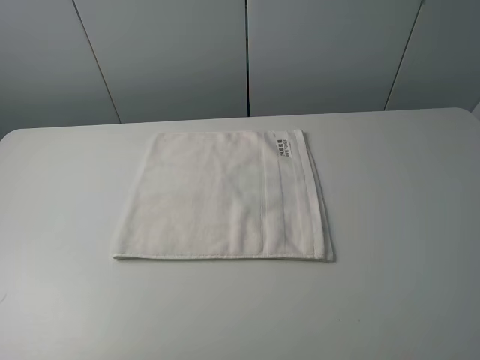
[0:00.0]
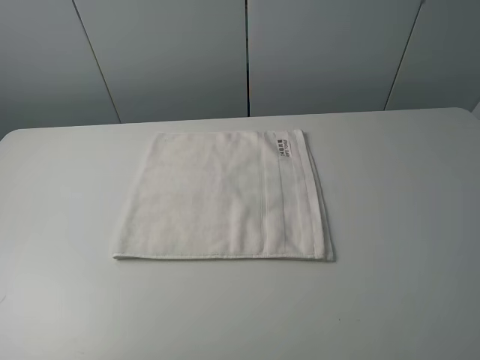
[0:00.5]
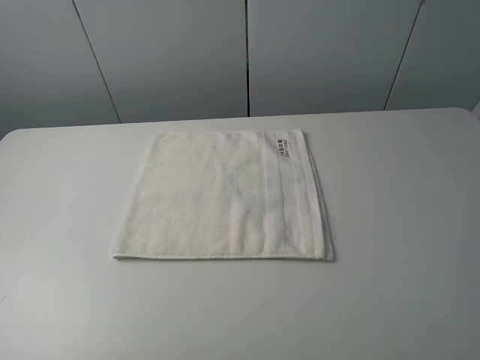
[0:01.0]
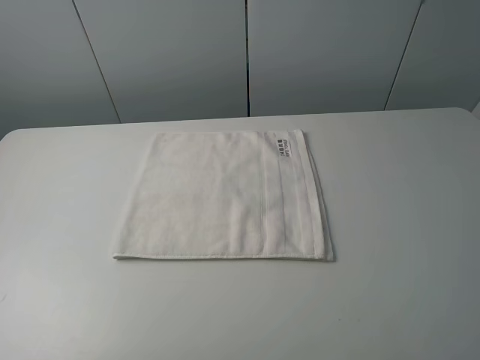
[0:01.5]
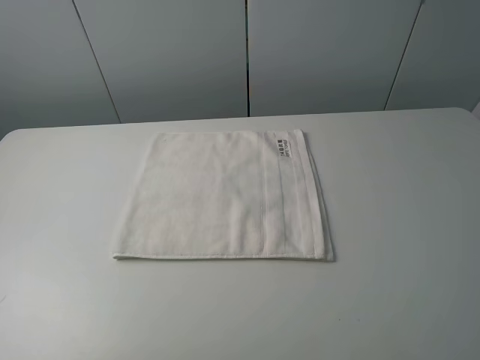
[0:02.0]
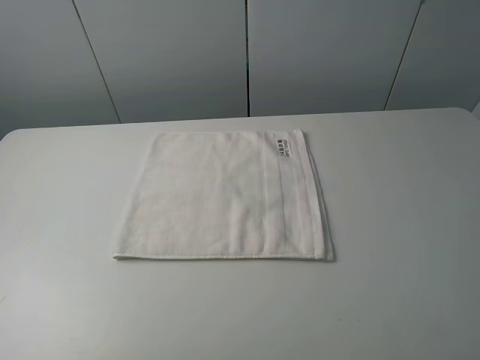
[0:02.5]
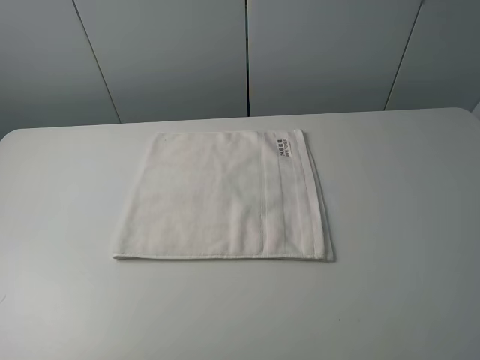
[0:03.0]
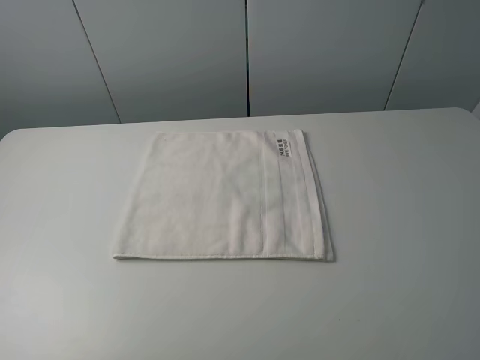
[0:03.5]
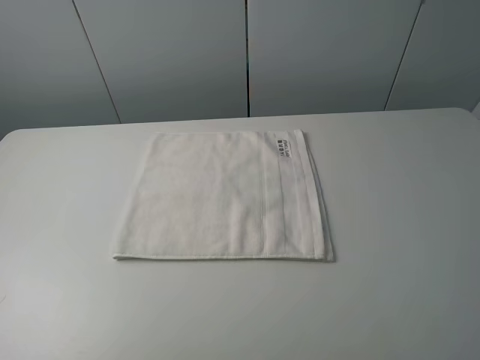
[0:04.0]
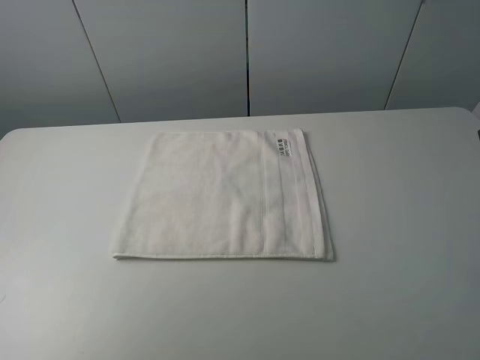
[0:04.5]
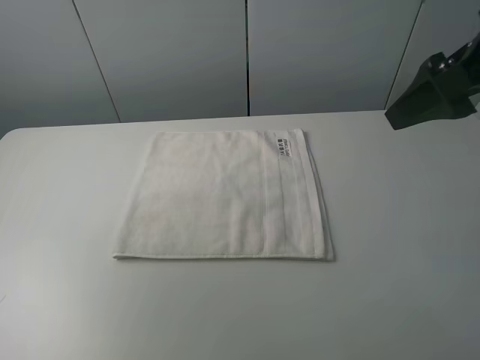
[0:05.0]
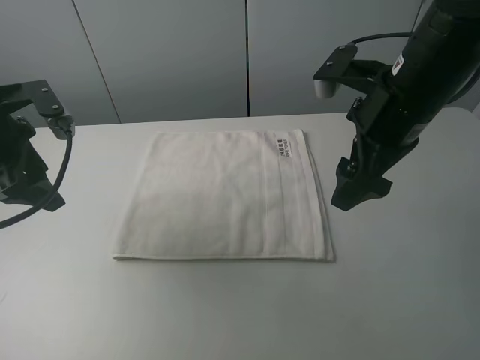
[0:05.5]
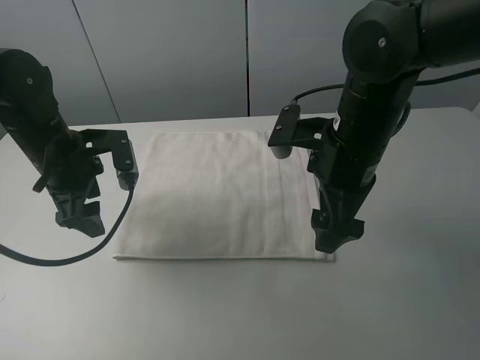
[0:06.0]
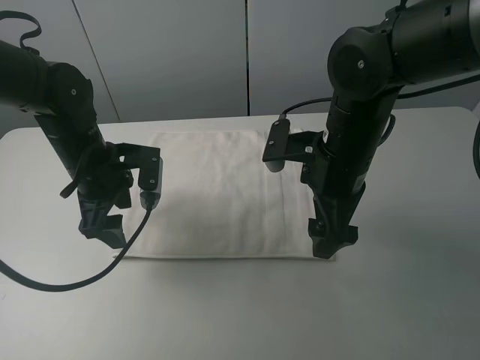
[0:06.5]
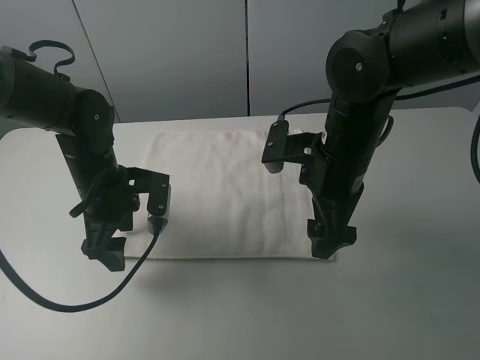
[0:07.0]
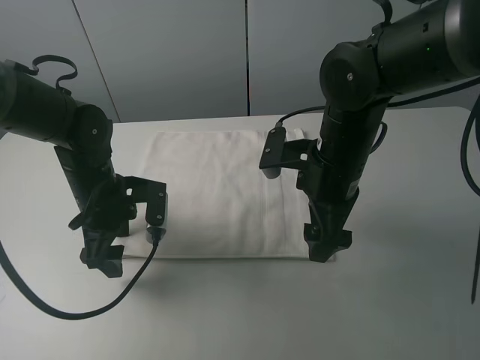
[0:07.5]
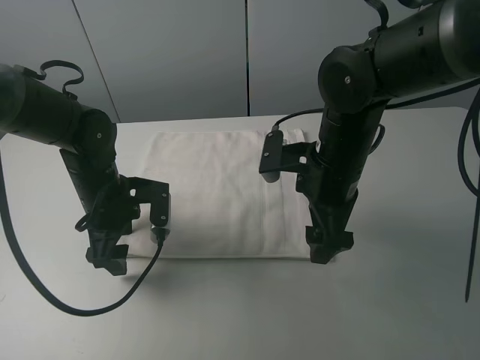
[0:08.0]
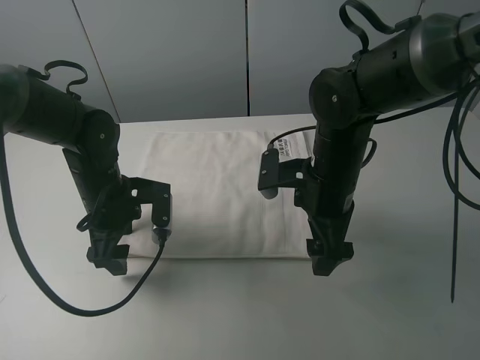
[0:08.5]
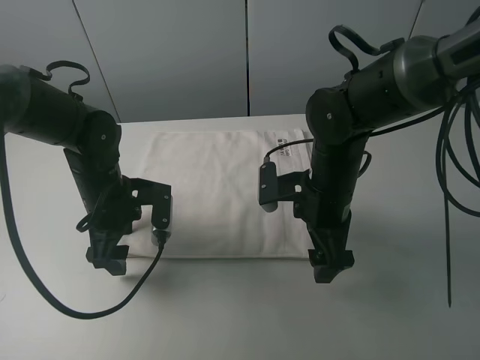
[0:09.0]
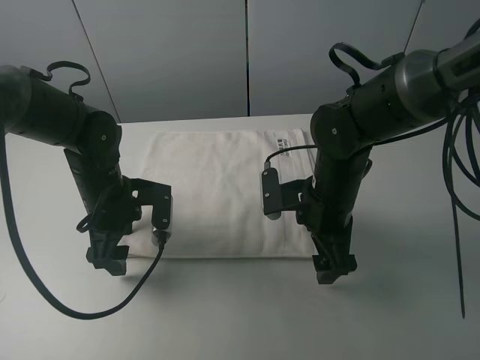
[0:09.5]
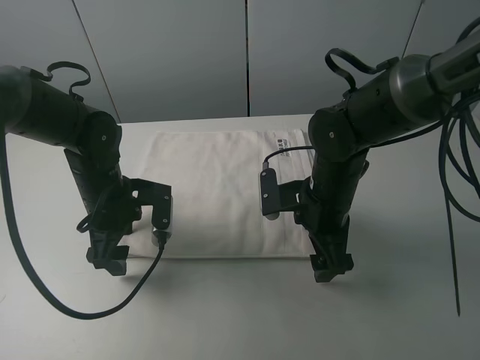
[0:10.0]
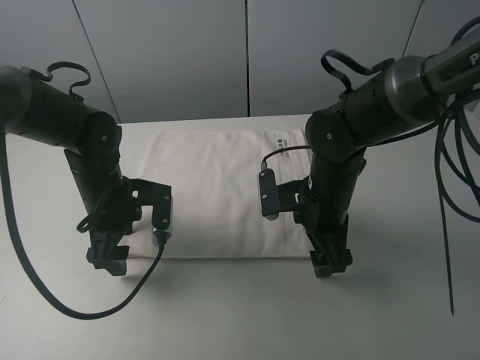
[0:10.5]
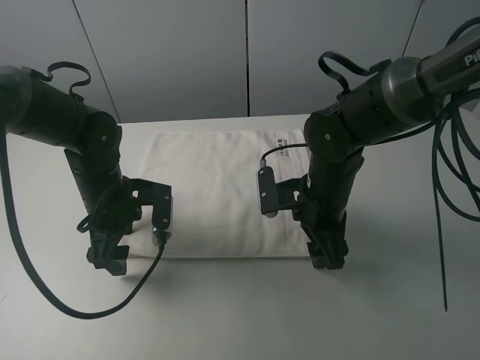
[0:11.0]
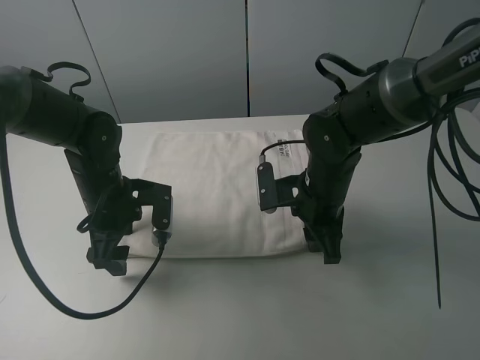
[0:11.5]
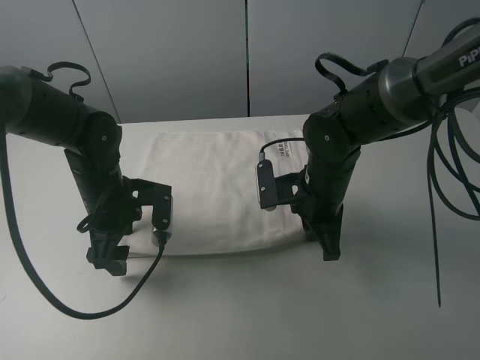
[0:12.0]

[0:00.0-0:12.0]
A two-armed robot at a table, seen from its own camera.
Task of the whole recording: fold the towels on the table.
Step, 0:00.0 to 0:11.5: Grasp the white towel with the right gripper.
0:00.0 to 0:02.0: The two grippers keep their place.
0:04.0 to 0:06.0: The left gripper travels forward, to the right and downward by some 35 cm, while the right gripper shifts approximately 30 cm forward, to the left and downward.
0:06.0 to 0:08.0: The left gripper goes approximately 5 cm downward.
0:08.0 to 0:10.0: The right gripper moves downward, about 5 cm.
0:10.0 to 0:12.0: The right gripper closes its fingers.

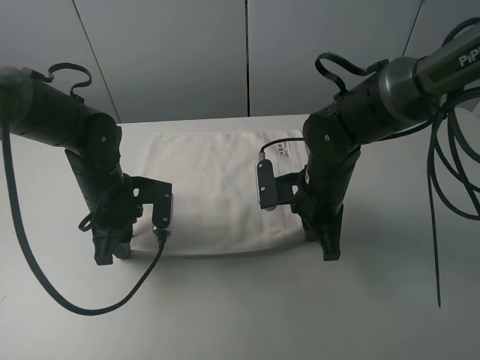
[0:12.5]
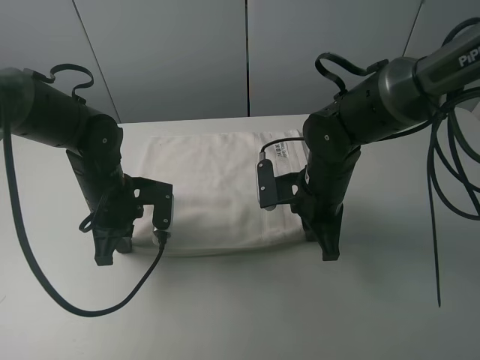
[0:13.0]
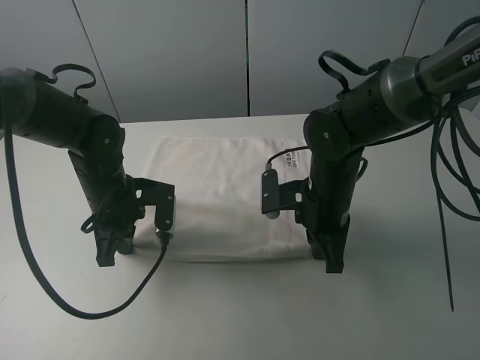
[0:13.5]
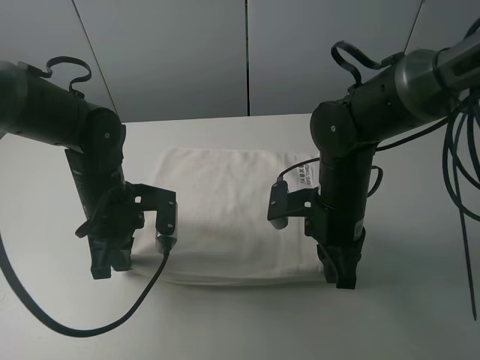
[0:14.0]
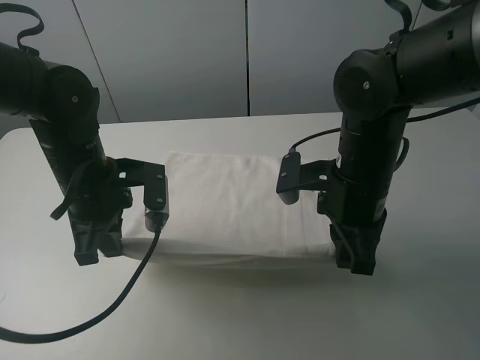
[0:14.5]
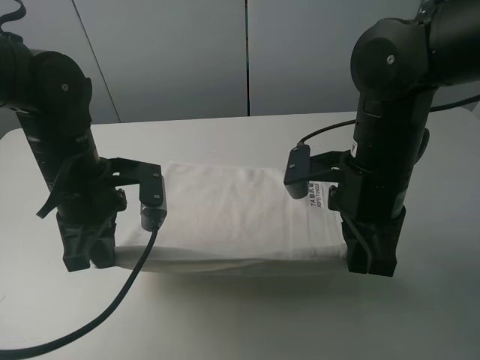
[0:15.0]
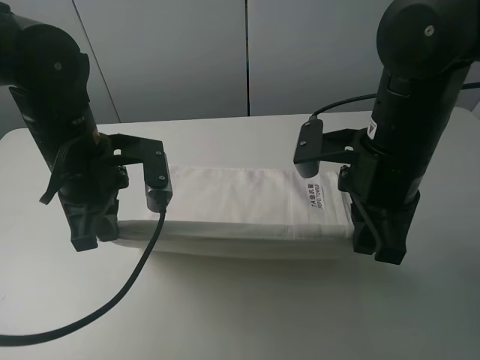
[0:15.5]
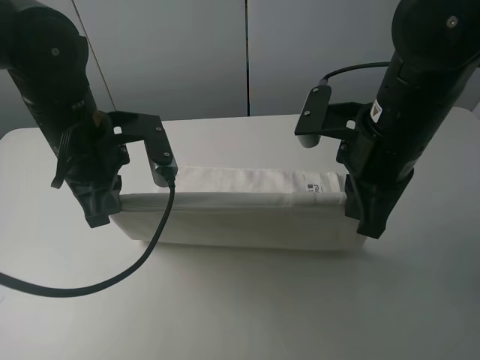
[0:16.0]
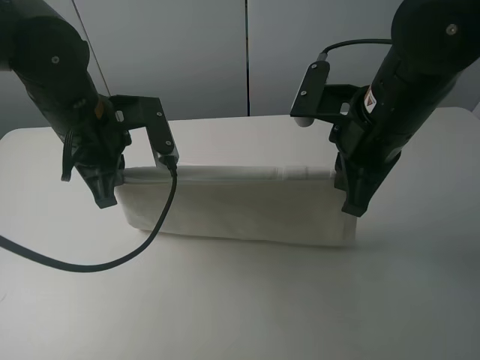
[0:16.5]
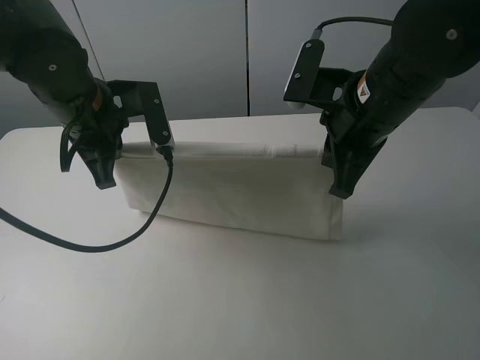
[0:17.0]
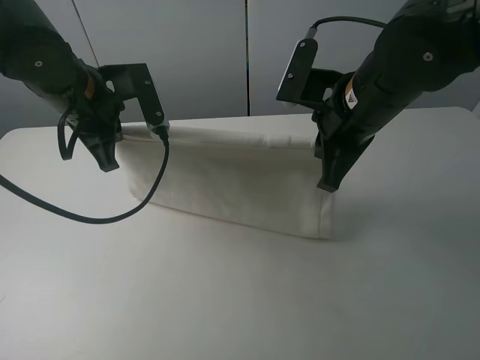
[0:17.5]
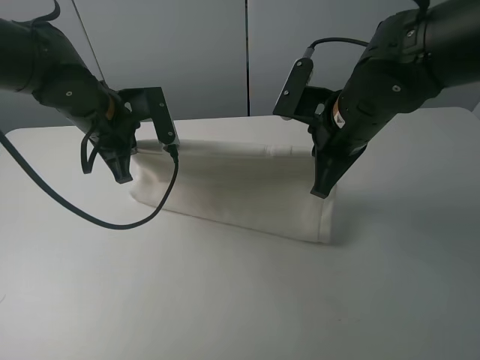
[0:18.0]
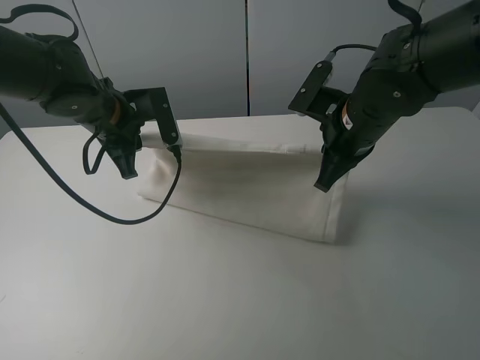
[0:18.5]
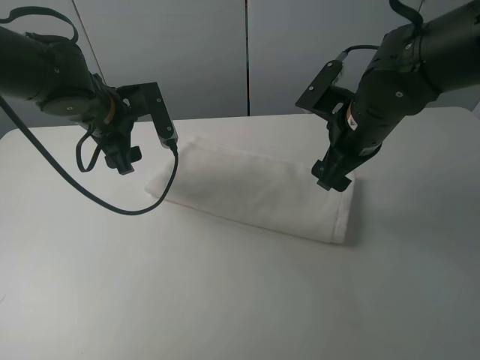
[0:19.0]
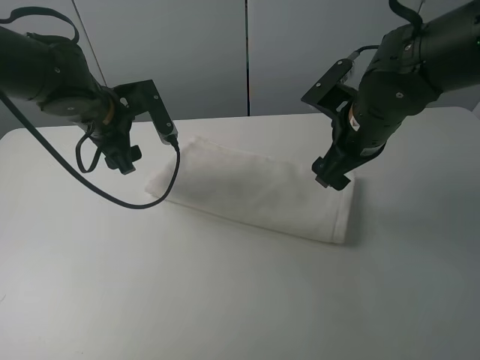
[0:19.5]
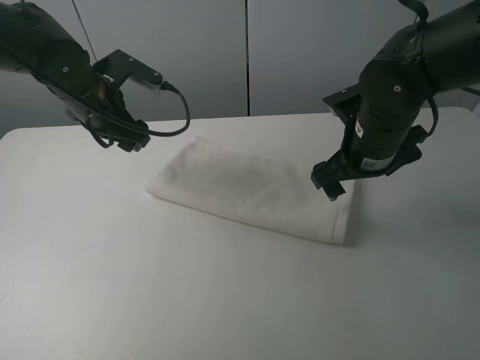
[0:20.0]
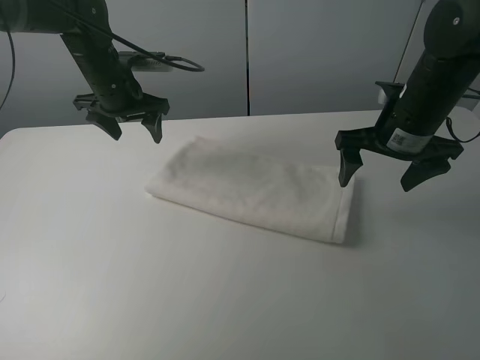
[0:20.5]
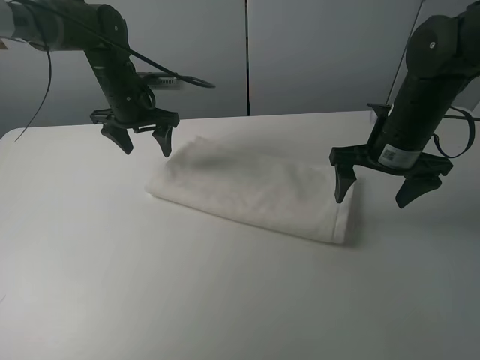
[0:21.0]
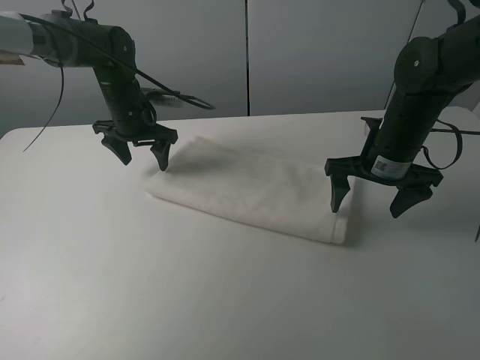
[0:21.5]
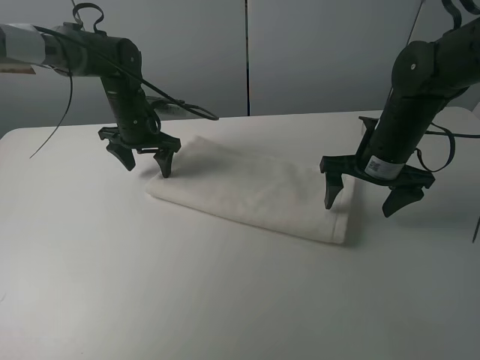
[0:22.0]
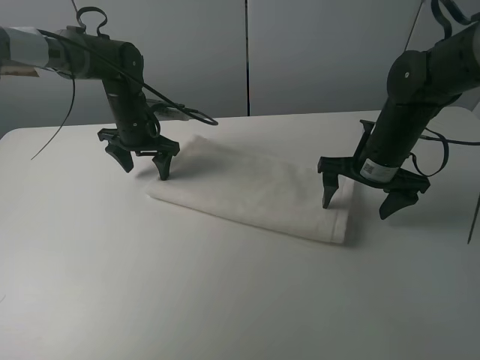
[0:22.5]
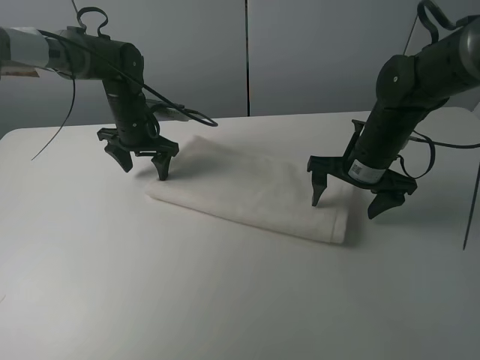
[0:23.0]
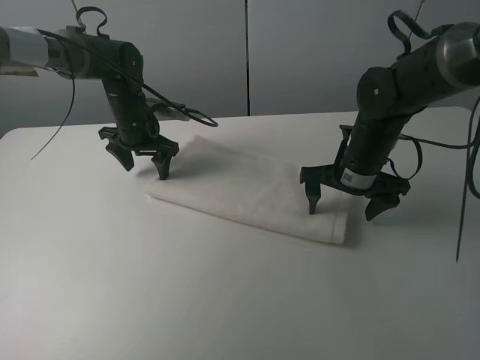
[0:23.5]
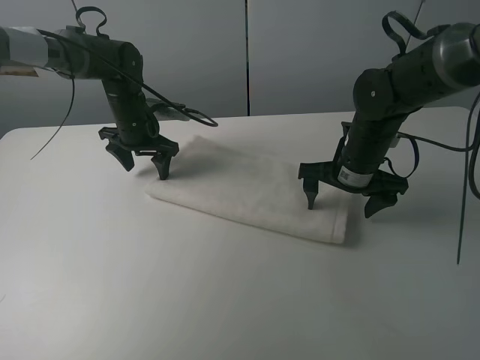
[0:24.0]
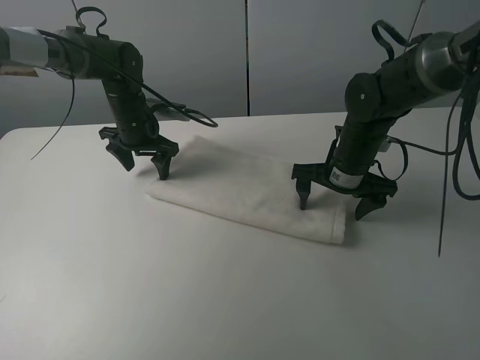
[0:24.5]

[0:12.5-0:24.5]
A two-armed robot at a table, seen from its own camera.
Task of the whole recording: fold the towels on the table.
Step, 0:13.0 to 0:19.5: Fold the white towel upwards with the right gripper.
Step, 0:20.0 to 0:22.0: Press on the white towel with the left gripper.
0:12.5 to 0:14.5: The two grippers go some 10 cm upward.
0:14.5 to 0:16.5: Both grippers move upward, roughly 5 cm.
0:16.5 to 0:18.5: Both grippers move forward, roughly 5 cm. The left gripper opens.
0:18.5 to 0:20.5: The right gripper travels to the right by some 5 cm, and opens up; the left gripper travels forward by about 10 cm, and opens.
0:20.5 to 0:22.5: The grippers both shift downward by some 5 cm.
0:22.5 to 0:24.5: The grippers stay close to where they were, moving slightly.

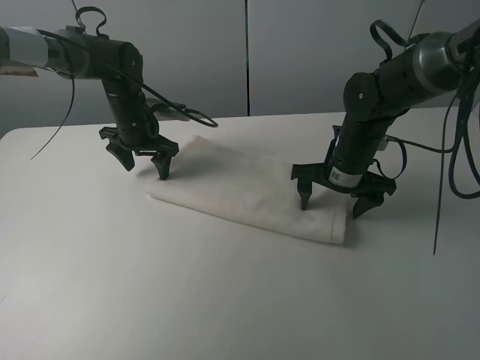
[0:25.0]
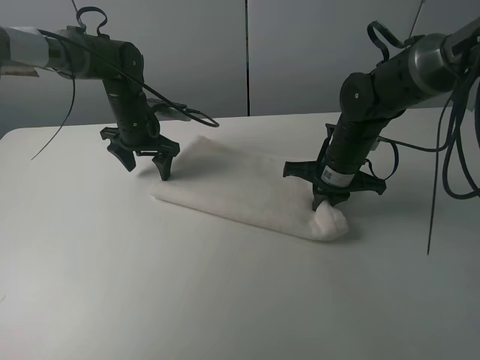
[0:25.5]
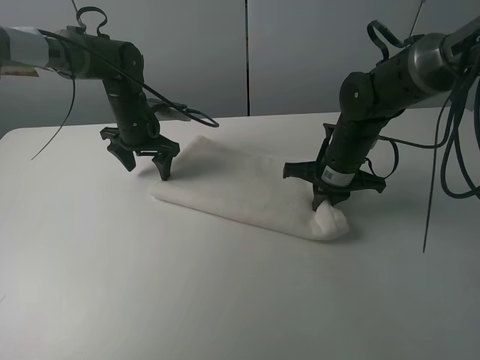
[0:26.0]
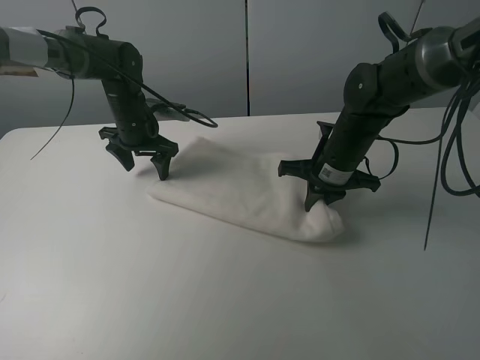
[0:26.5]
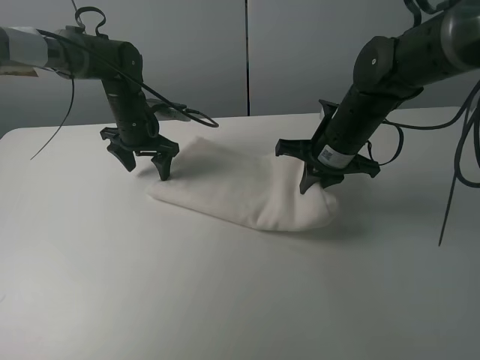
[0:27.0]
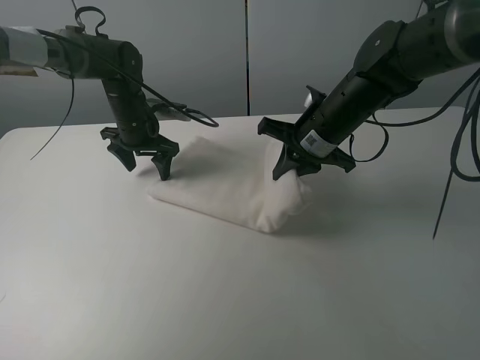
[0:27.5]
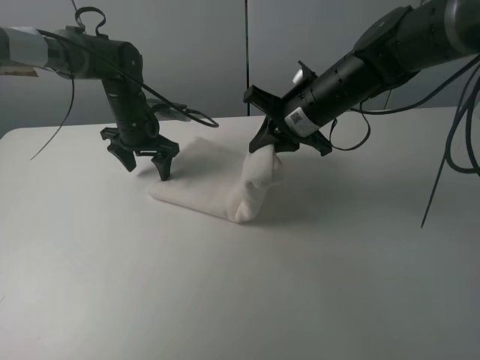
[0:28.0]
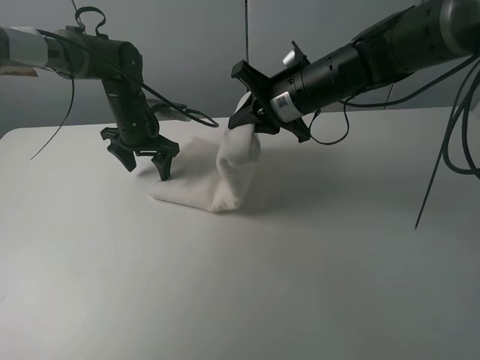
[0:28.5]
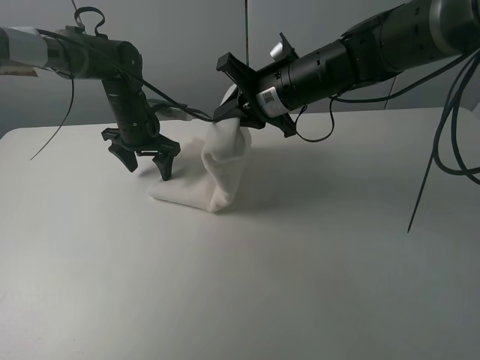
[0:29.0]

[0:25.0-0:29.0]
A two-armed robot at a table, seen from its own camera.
Task of the whole recording: fold the towels on the table.
0:25.0 to 0:27.0: The right gripper closes up.
0:27.0 to 0:29.0: The right gripper is displaced to the left and upward by about 10 cm.
